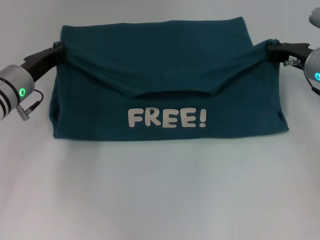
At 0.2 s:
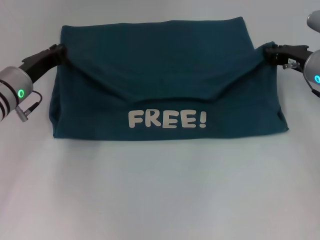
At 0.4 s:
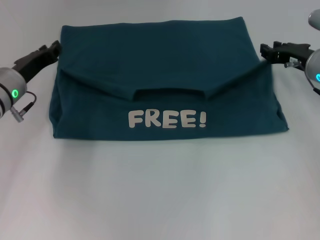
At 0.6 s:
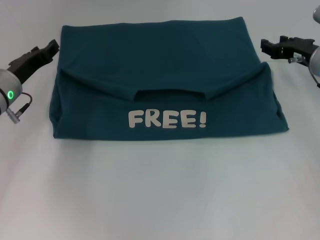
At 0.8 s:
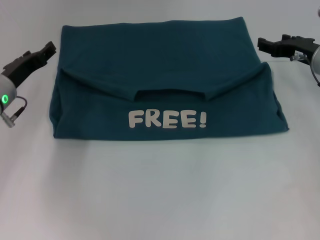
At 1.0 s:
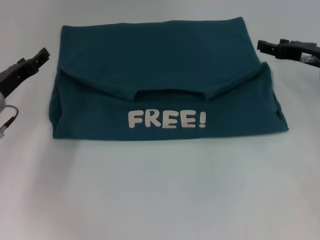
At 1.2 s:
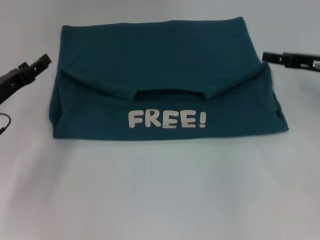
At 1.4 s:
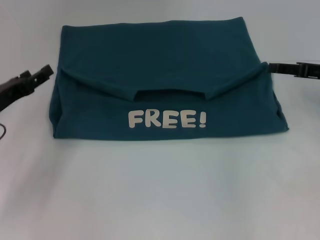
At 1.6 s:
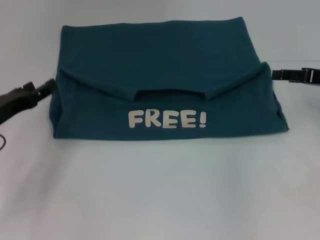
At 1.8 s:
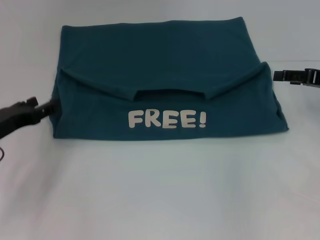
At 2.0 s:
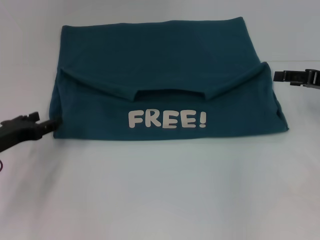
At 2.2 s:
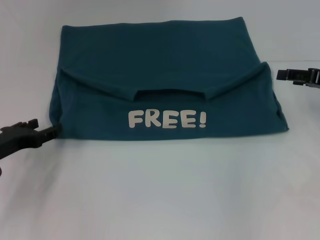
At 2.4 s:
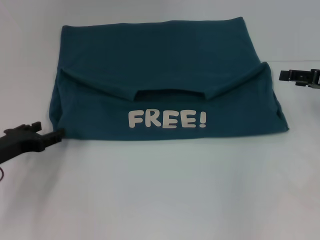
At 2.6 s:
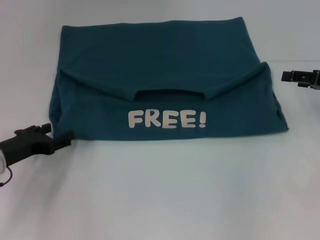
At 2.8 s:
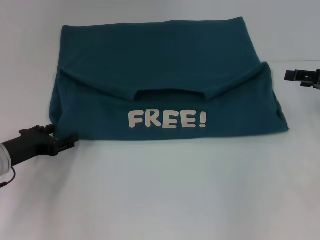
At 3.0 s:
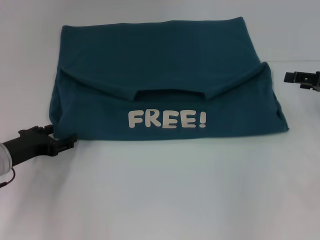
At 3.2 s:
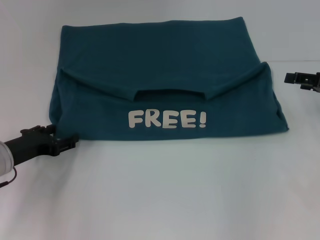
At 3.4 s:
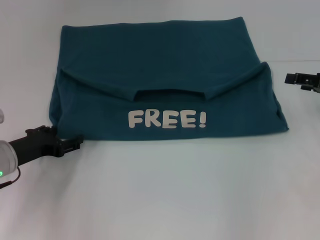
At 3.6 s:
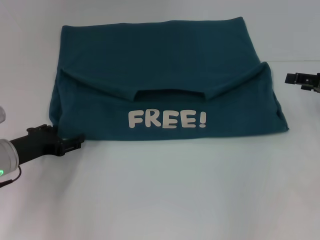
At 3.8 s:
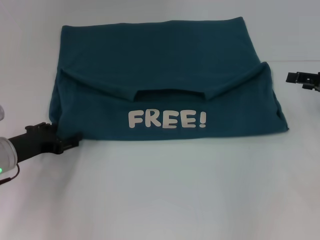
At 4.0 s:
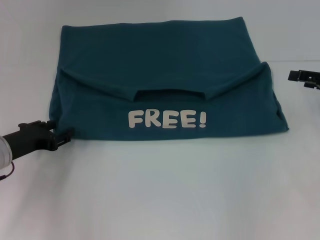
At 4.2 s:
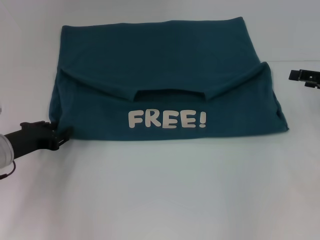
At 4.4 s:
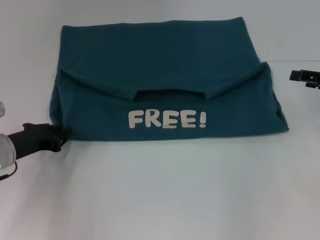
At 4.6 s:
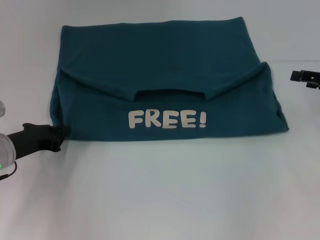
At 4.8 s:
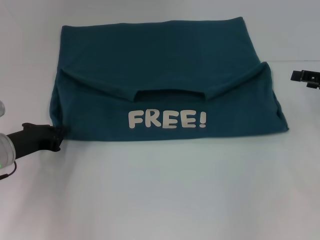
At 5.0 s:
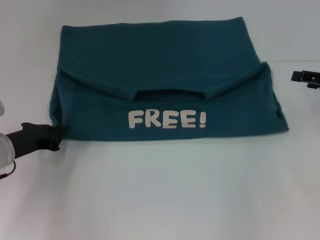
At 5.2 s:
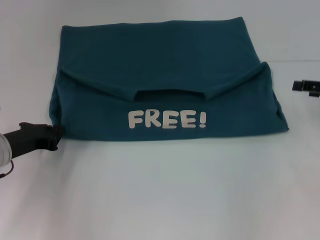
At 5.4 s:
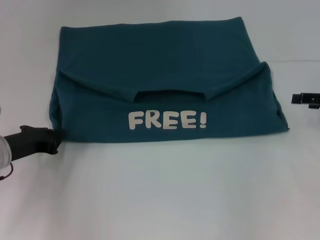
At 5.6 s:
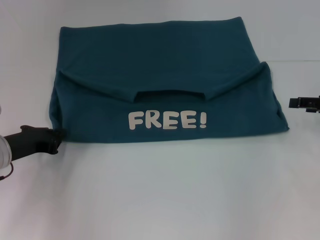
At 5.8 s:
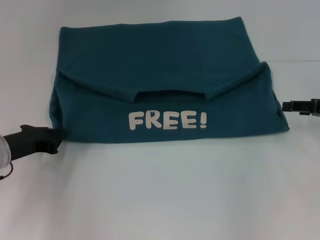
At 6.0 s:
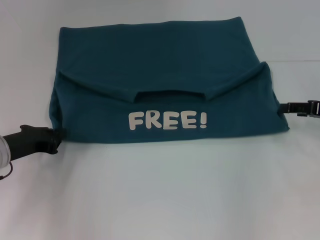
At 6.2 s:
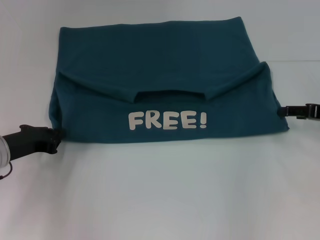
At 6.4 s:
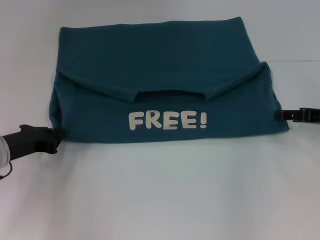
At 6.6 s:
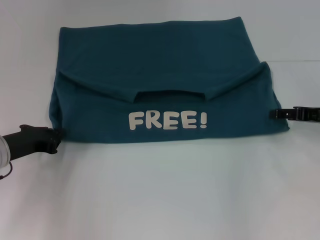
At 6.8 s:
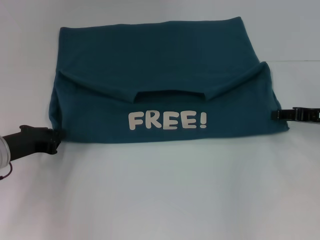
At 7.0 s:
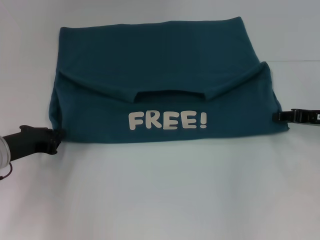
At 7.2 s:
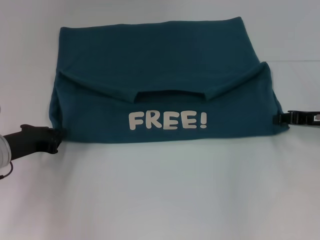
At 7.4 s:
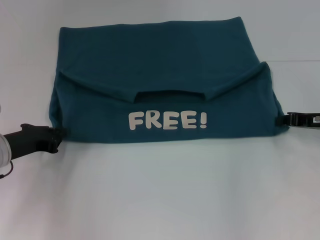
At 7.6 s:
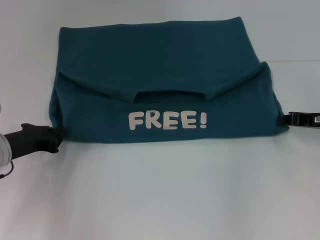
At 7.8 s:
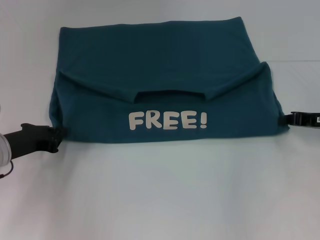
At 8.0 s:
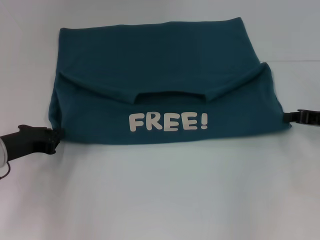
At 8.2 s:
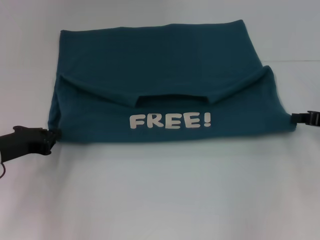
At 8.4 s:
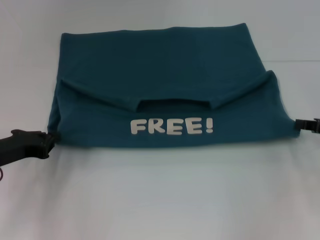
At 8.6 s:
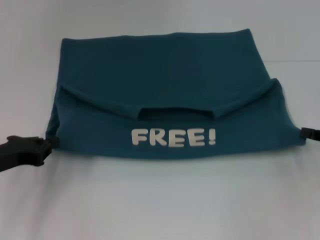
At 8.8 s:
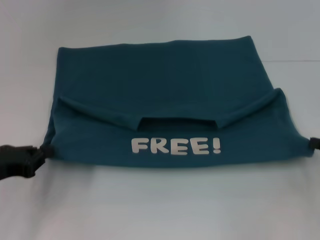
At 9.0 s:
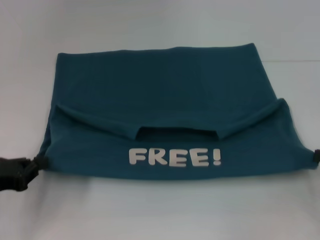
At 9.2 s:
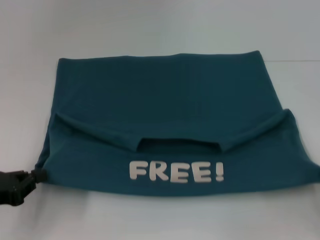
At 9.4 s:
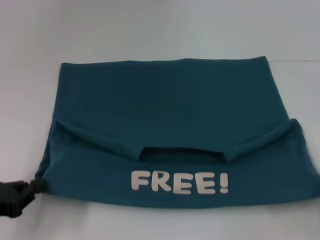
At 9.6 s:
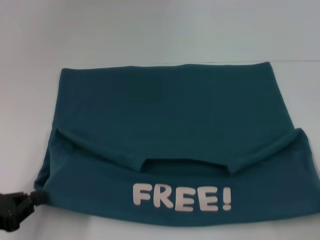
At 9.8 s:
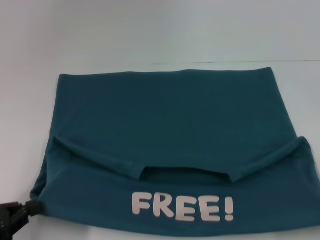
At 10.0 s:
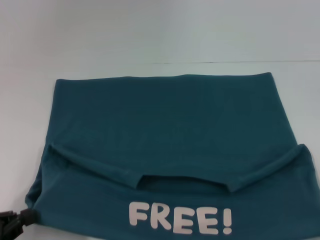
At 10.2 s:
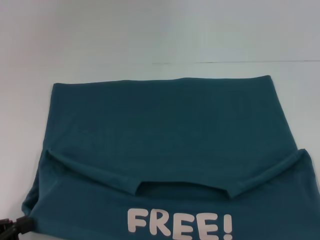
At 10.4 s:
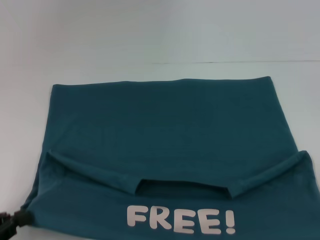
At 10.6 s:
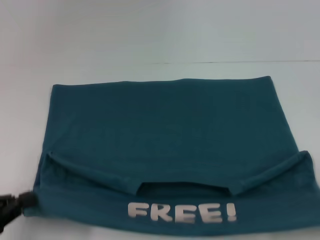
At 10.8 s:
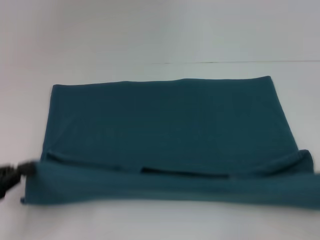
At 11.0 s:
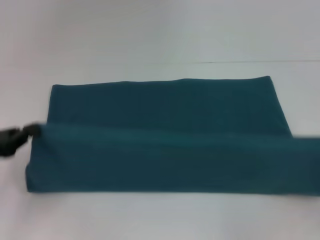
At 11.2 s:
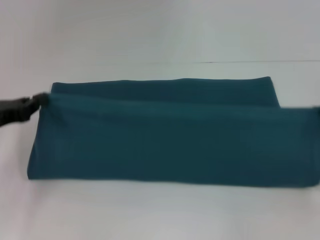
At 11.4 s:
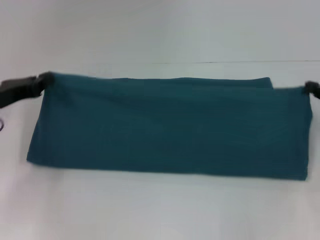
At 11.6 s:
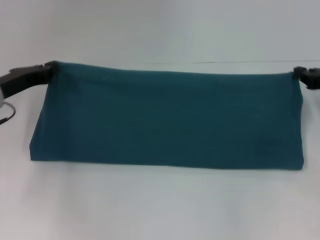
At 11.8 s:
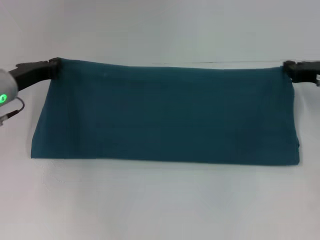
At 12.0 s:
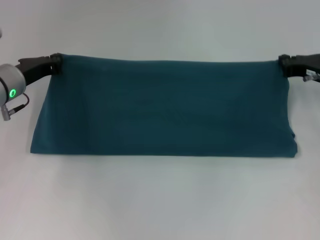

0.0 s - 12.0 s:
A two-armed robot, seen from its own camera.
Step, 1.2 s - 10.2 s: Pull the clothes with your left hand.
Step, 1.2 s - 10.2 s: Pull the clothes with your right hand.
0.0 s - 1.6 s: The right gripper is displaced to the right by approximately 5 cm, and opens its fingers; the left gripper heads backward and to the left, covering approximately 10 cm, and opens up.
3.0 s - 4.4 s: The grippers make only small movements.
4.4 s - 6.0 s: The left gripper closes up.
6.0 s - 7.6 s: The right gripper closes.
7.6 s - 9.0 s: The left gripper is displaced backward by about 10 cm; the right gripper travels backward and to the right by approximately 15 cm.
9.0 s - 10.4 s: The two grippers go some 10 cm backward.
10.4 s - 12.0 s: The grippers both shift forward by some 30 cm.

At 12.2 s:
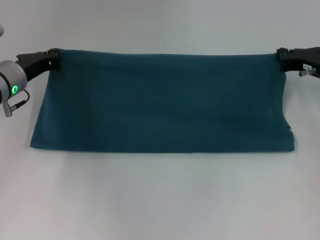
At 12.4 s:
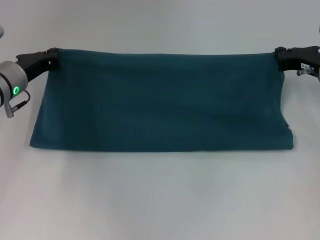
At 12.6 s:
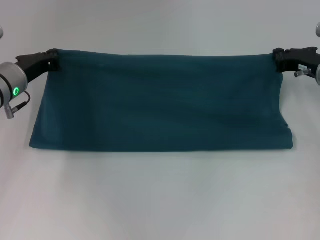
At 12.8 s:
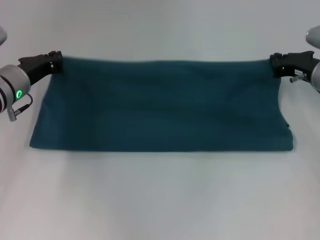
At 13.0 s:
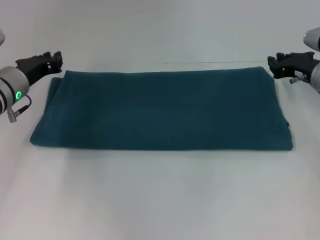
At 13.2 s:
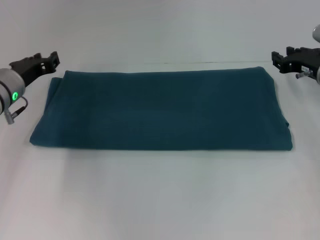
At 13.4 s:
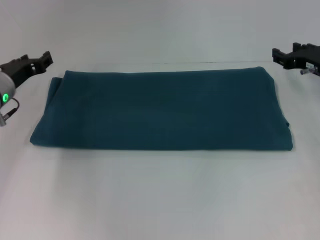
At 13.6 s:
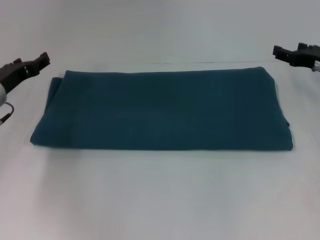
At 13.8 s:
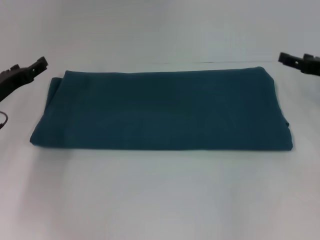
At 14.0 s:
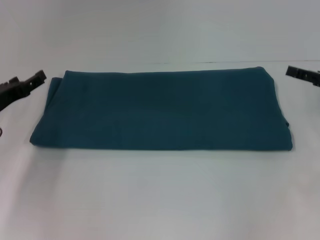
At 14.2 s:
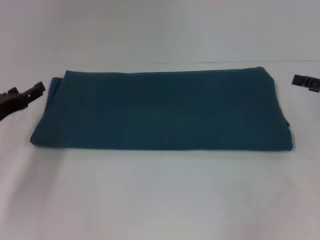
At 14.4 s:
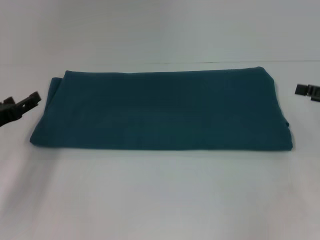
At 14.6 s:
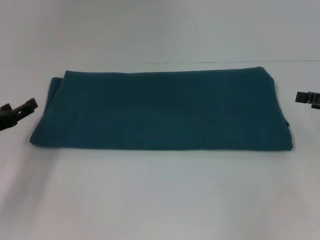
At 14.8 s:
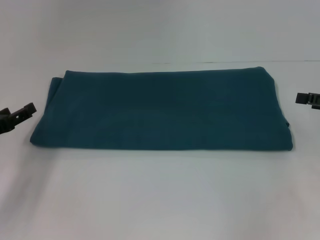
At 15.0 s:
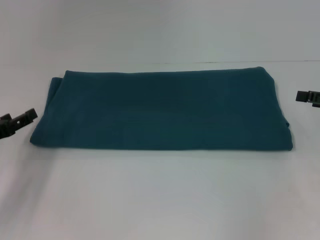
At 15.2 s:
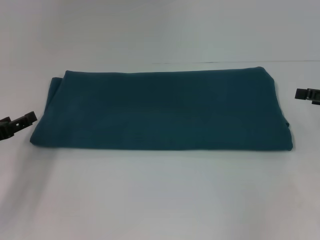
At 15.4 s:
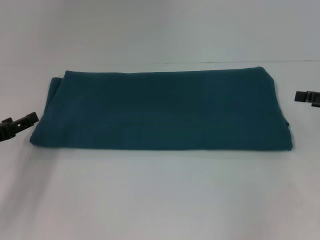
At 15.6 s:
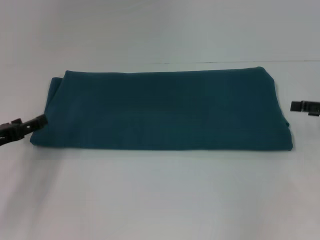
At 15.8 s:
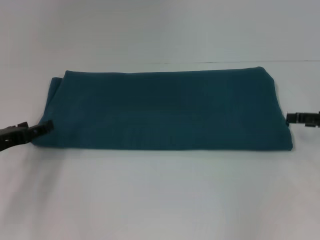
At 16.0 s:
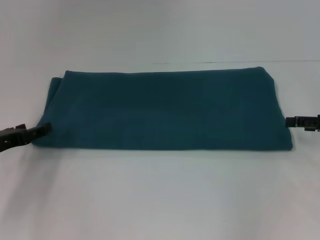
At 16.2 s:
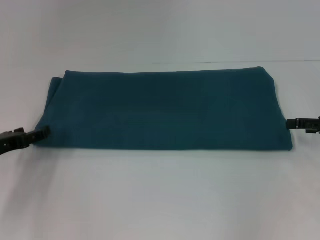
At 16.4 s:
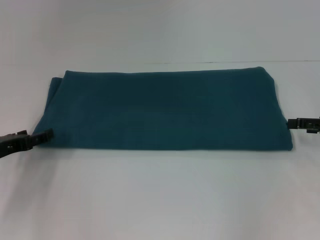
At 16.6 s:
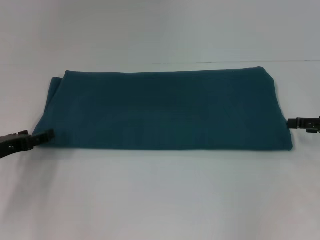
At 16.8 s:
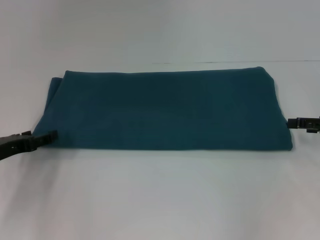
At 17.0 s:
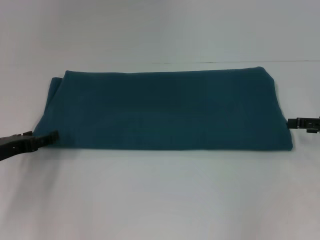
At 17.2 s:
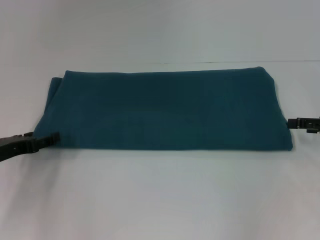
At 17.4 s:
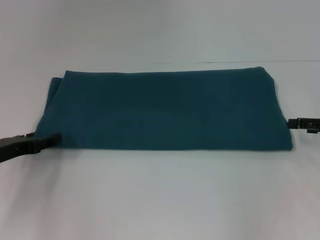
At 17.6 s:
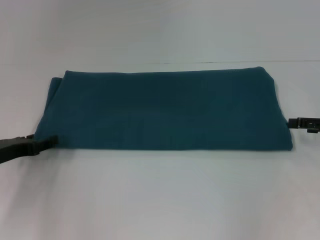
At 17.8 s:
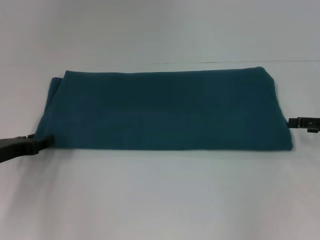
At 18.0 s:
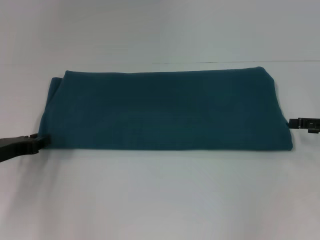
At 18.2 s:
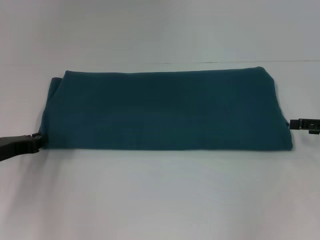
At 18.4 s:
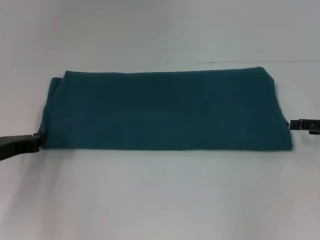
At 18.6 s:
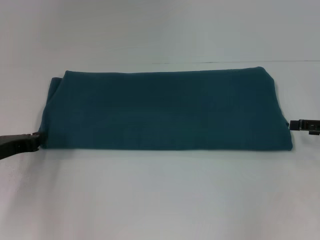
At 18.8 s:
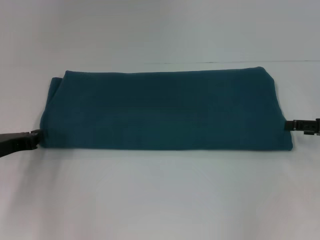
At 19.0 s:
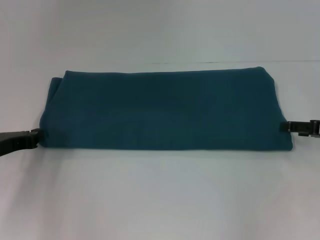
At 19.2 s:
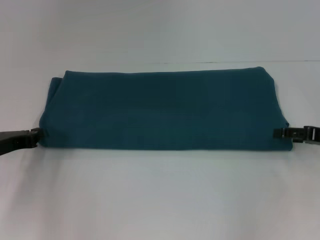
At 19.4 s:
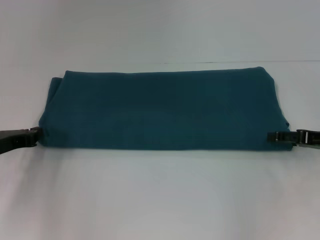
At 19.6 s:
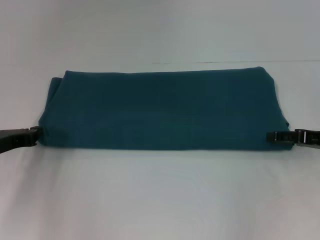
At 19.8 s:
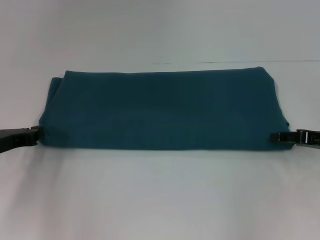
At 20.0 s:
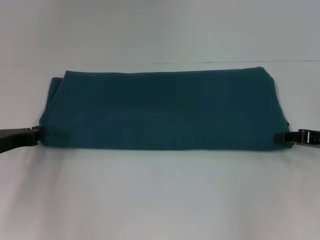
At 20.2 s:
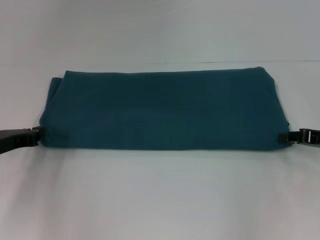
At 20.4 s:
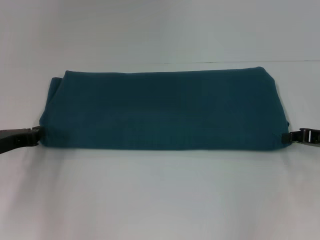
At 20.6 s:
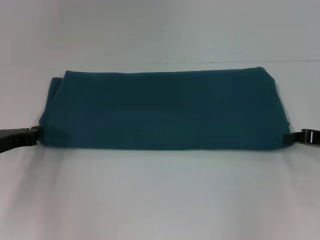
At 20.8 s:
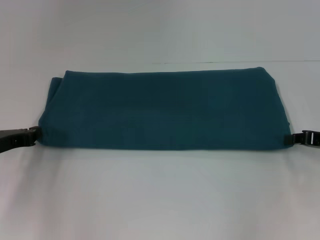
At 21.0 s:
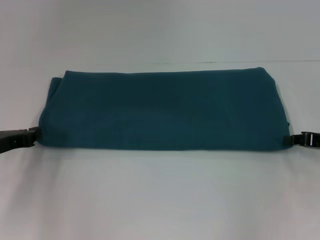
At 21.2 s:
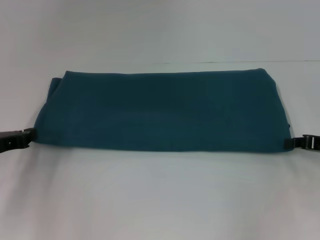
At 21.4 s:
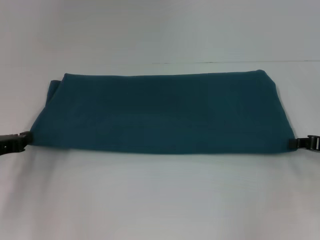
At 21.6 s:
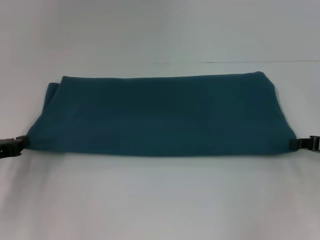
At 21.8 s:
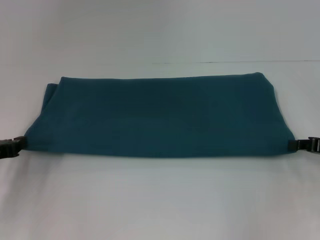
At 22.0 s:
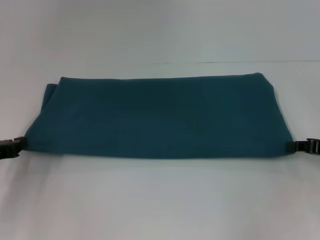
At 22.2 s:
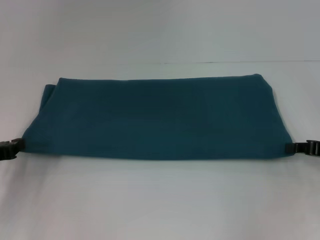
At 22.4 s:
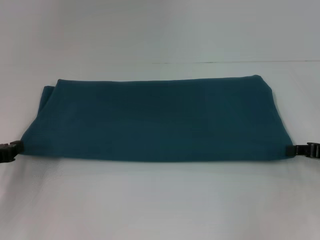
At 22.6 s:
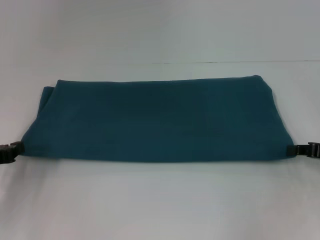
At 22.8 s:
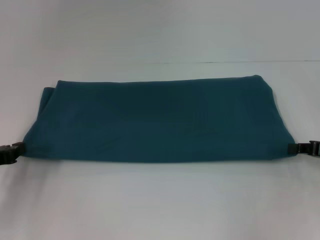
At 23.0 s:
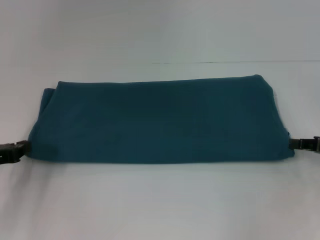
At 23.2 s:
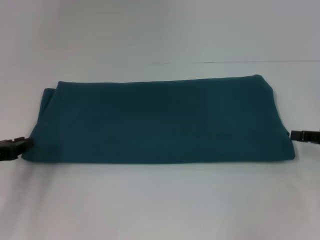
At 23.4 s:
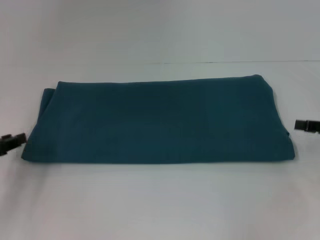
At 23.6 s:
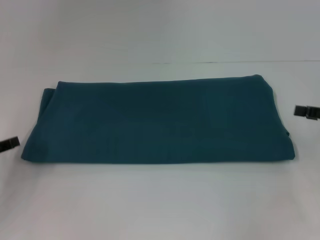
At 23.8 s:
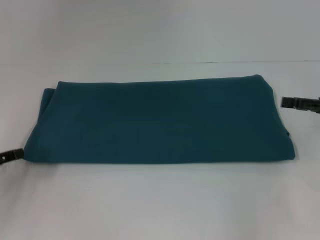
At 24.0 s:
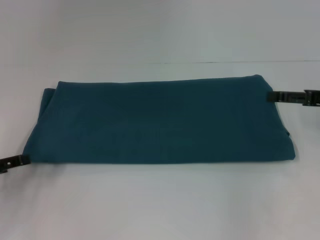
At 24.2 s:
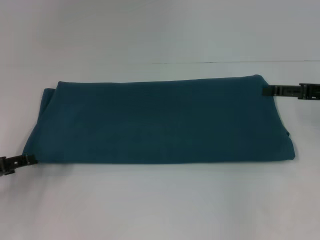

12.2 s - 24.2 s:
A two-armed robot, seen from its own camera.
12.2 s - 13.8 s: The left gripper shifts by some 5 cm, and opens up; the right gripper moves approximately 5 cm, and opens its fingers.
13.8 s - 15.2 s: The right gripper ends up some 5 cm from where it was. The left gripper heads backward, covering some 10 cm.
15.2 s - 16.6 s: The grippers move only a little.
16.6 s - 18.2 s: The left gripper closes its fingers.
18.2 s - 19.8 s: The left gripper closes its fingers.
19.8 s - 21.2 s: The right gripper closes.
21.2 s - 22.6 s: The grippers move only a little.
22.6 s - 24.2 s: The left gripper opens. The right gripper shifts some 10 cm upward and forward, and opens.
